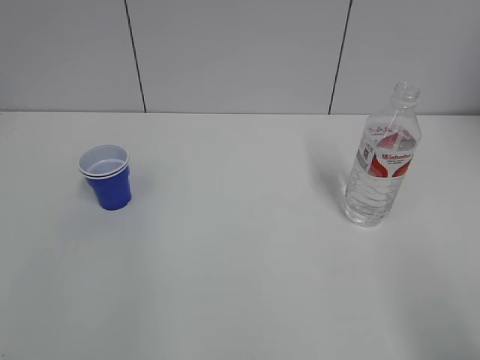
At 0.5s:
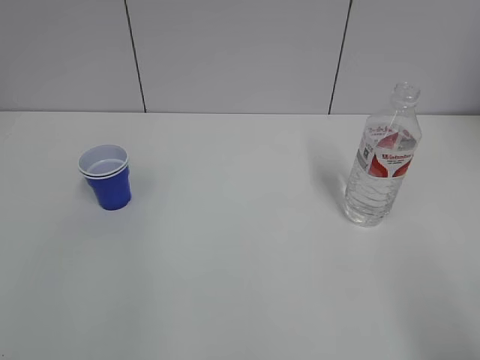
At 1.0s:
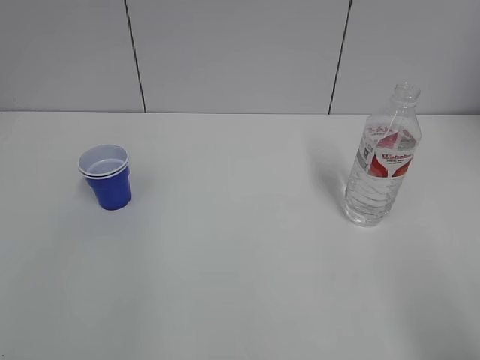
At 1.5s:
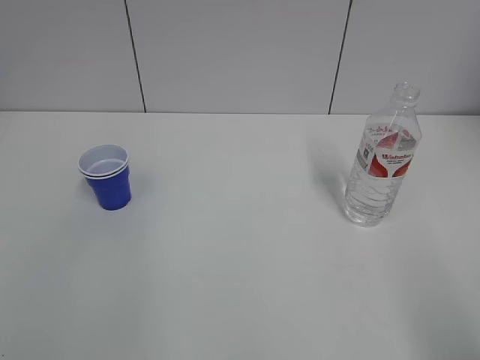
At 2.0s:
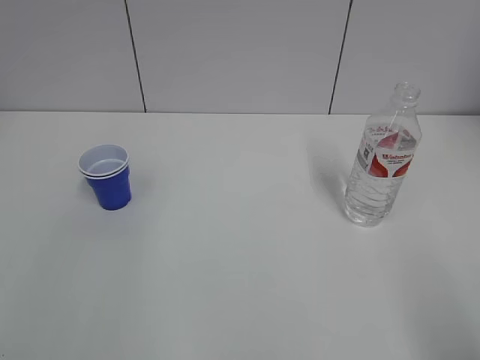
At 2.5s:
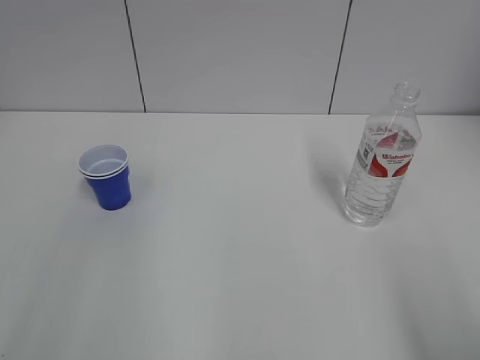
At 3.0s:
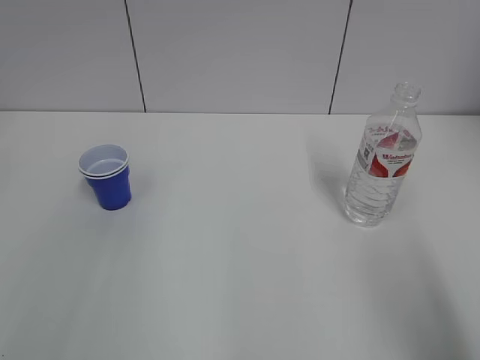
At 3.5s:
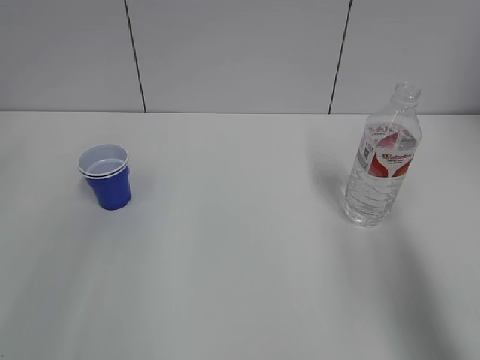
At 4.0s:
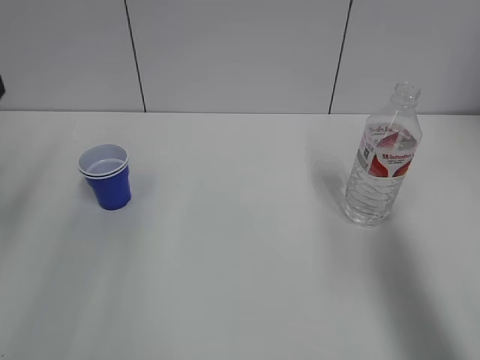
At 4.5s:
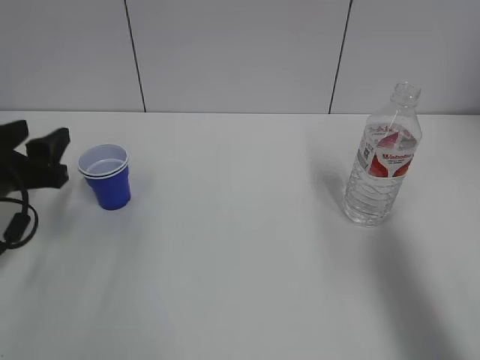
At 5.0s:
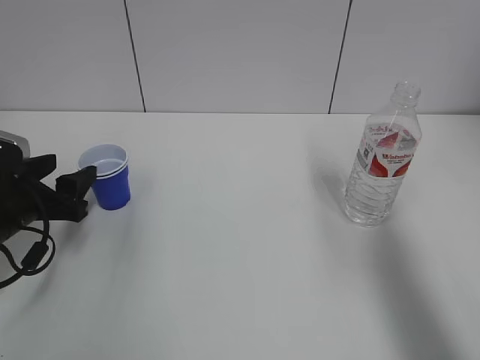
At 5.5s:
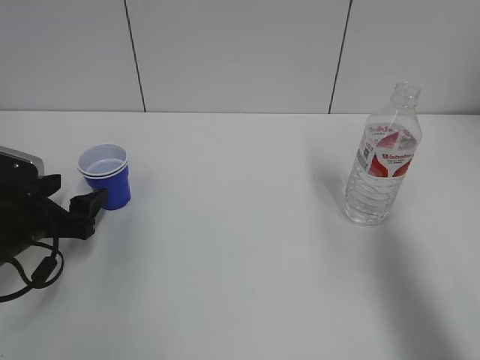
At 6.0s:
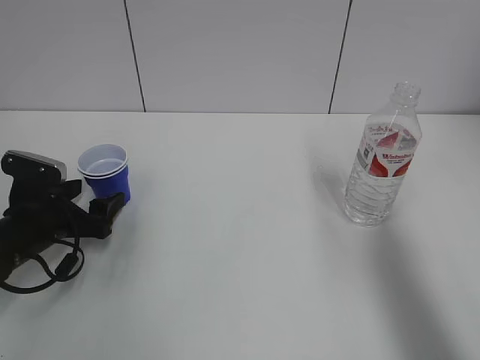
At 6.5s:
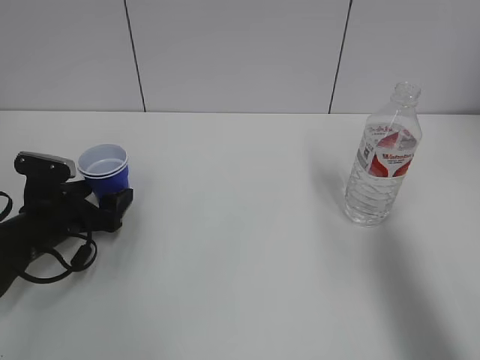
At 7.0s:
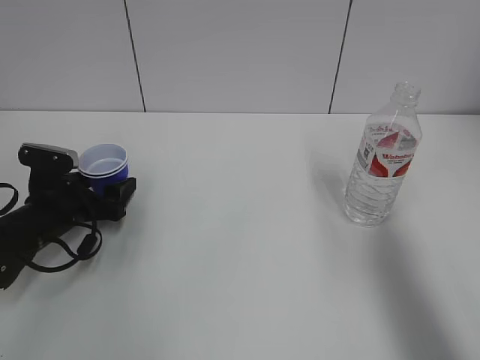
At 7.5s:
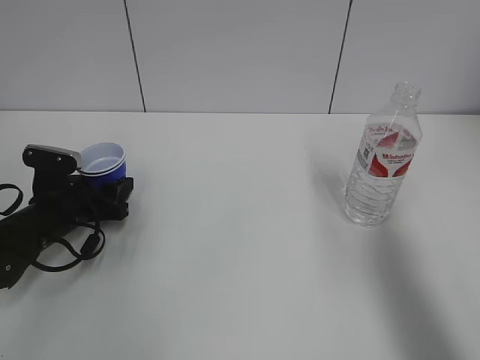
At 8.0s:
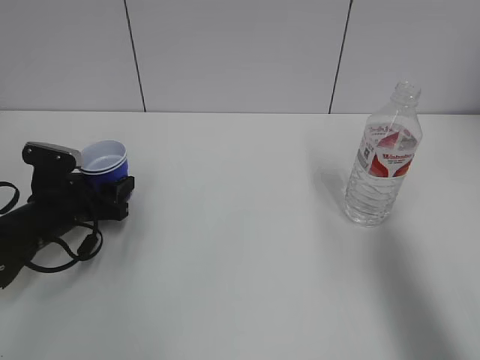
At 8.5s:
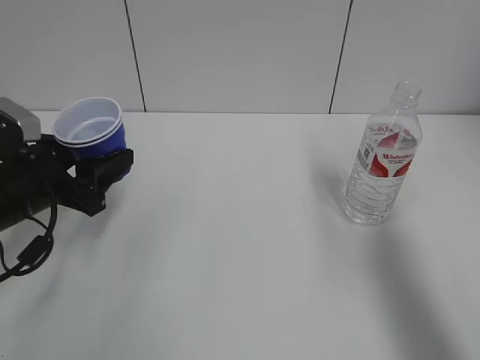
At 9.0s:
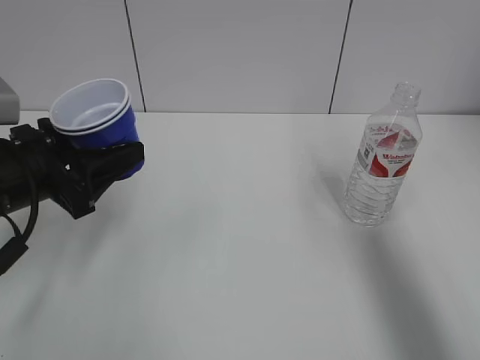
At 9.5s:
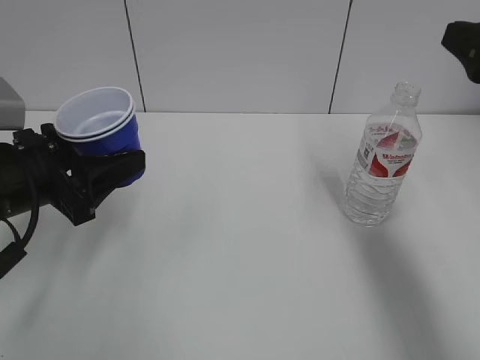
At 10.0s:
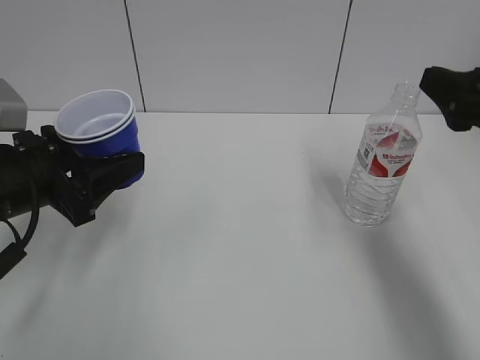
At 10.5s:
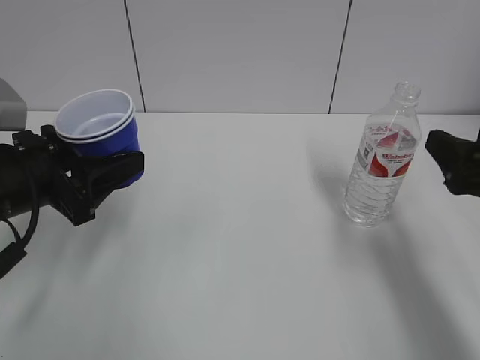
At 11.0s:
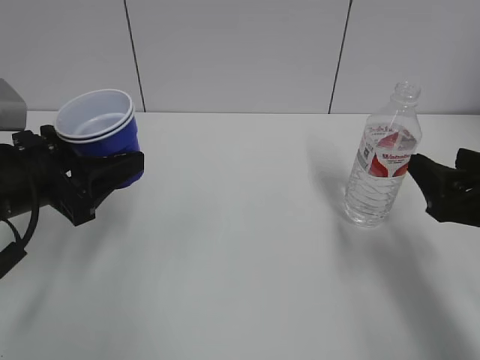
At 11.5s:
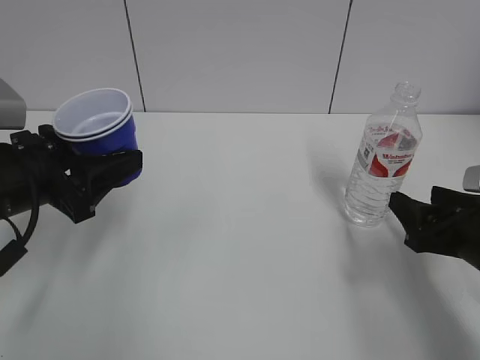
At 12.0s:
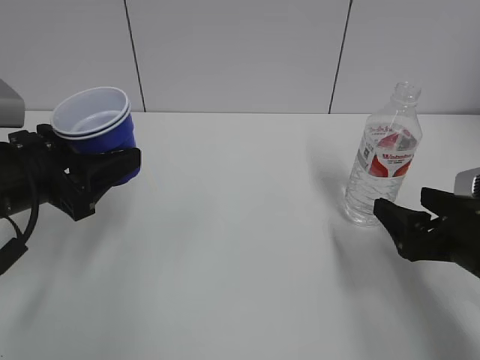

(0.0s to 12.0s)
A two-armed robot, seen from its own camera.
Step, 0.0s - 7.5s: Grab the paper cup with the left hand.
2.0s - 4.0s: The right gripper heads forward, covering some 15 cm.
4.0s - 6.0s: The left gripper heads downward, covering approximately 20 cm.
6.0s - 8.0s: The left gripper closes its fingers.
8.0s - 10.0s: The left gripper moves upward and backward, about 15 cm; the right gripper heads forward and downward, covering about 10 cm.
10.0s - 12.0s: The right gripper goes about 15 cm downward, and opens its fingers.

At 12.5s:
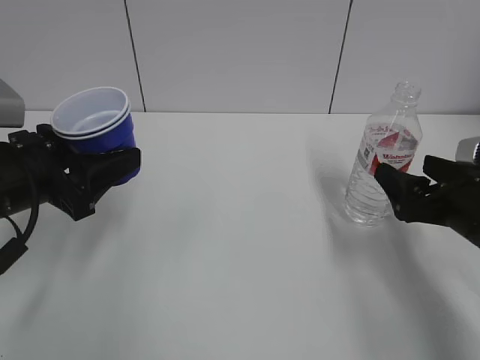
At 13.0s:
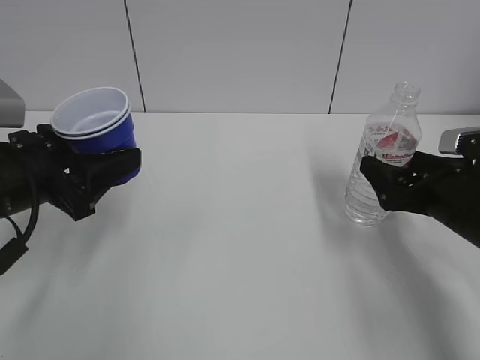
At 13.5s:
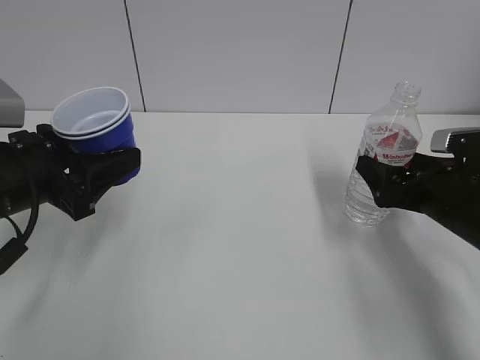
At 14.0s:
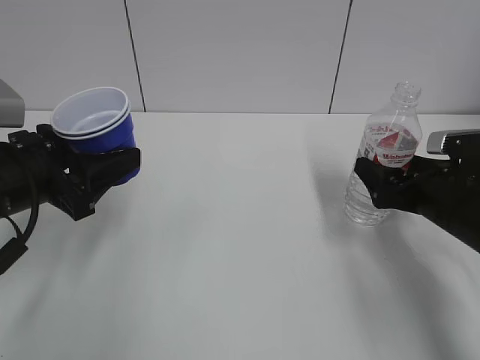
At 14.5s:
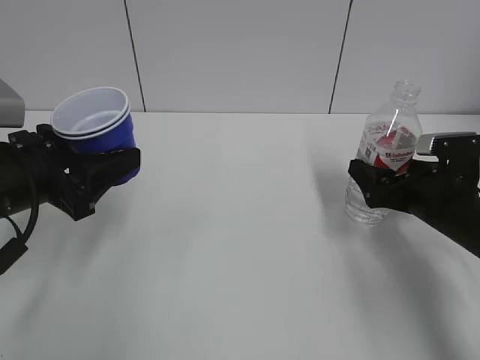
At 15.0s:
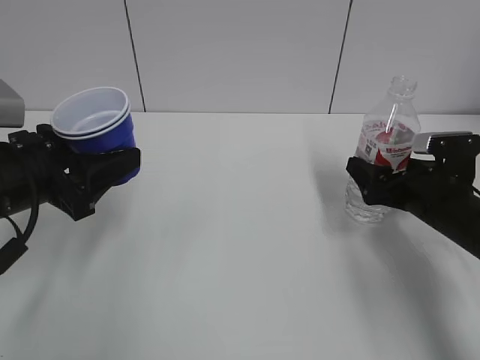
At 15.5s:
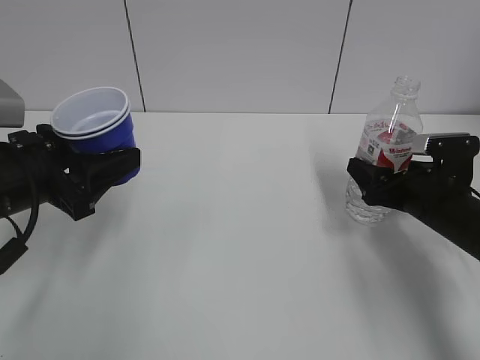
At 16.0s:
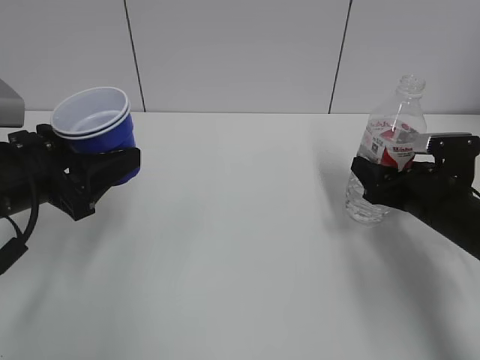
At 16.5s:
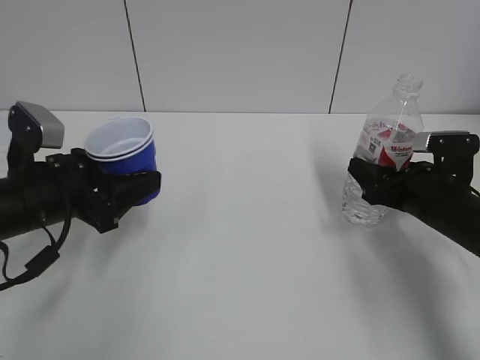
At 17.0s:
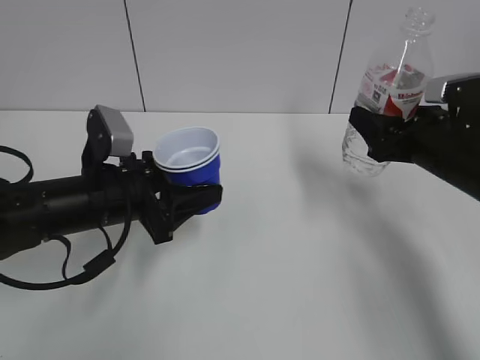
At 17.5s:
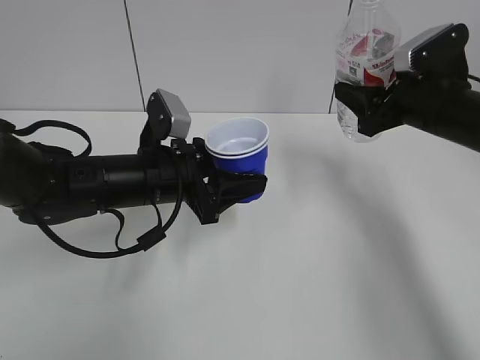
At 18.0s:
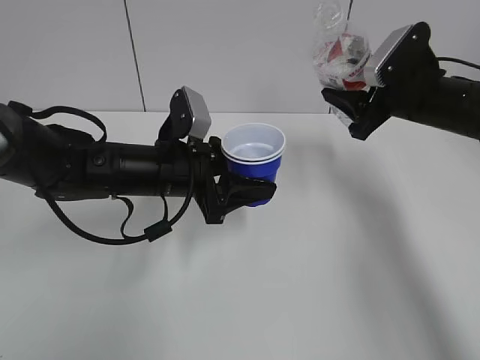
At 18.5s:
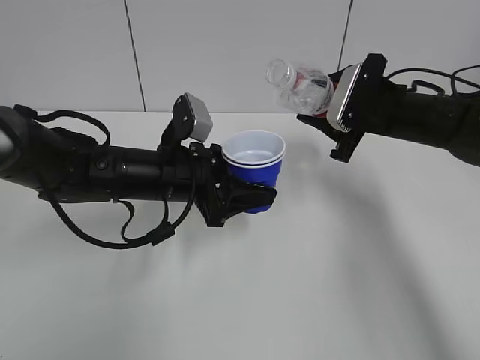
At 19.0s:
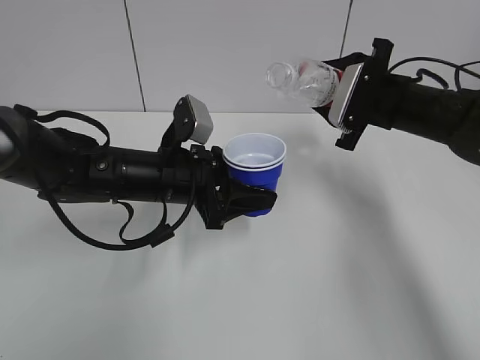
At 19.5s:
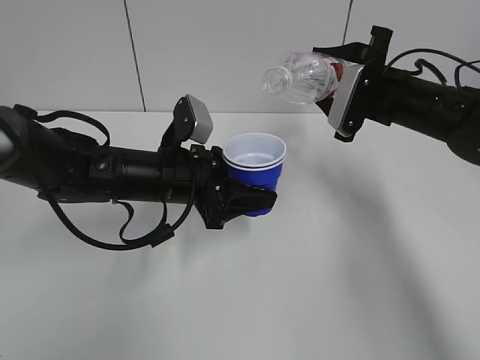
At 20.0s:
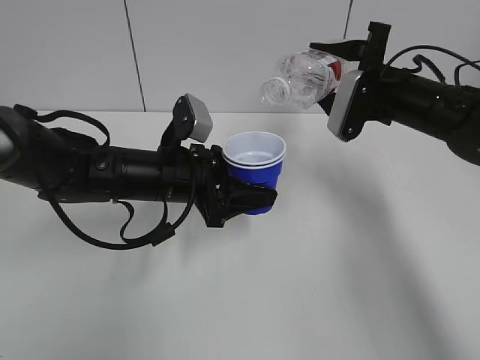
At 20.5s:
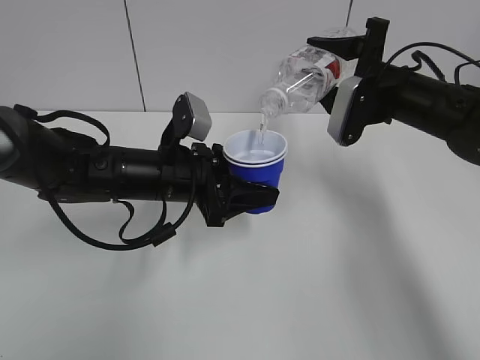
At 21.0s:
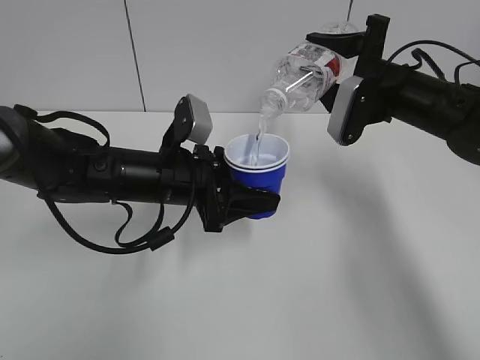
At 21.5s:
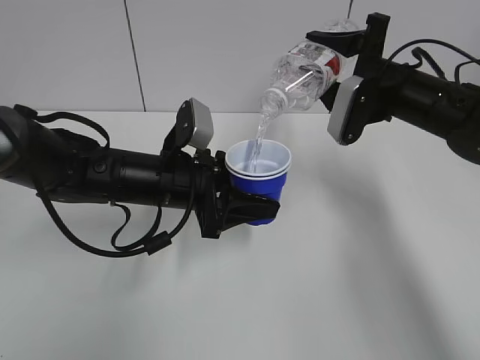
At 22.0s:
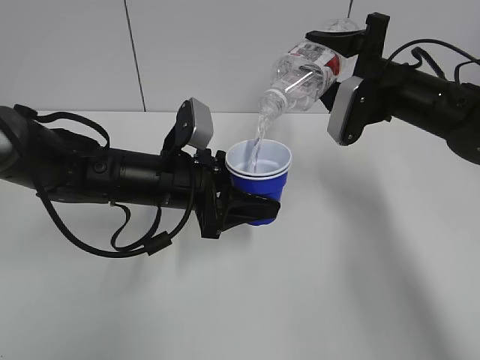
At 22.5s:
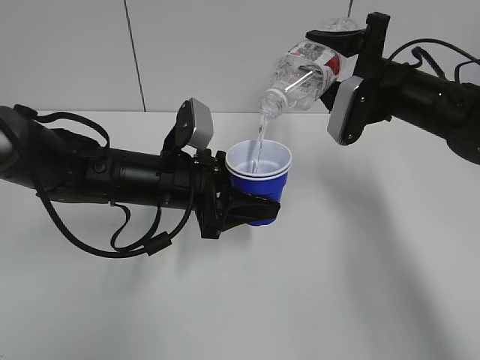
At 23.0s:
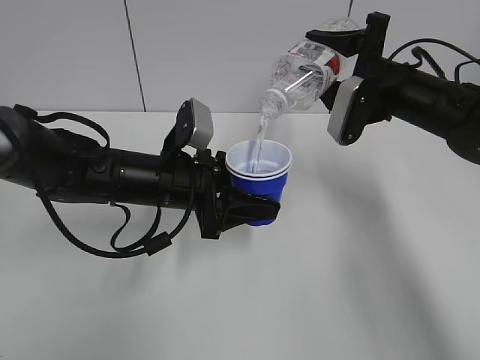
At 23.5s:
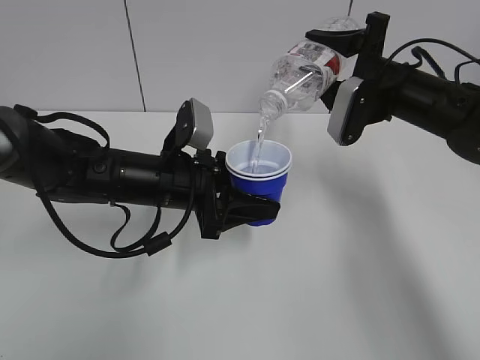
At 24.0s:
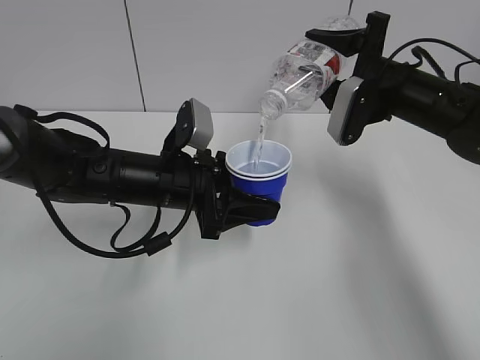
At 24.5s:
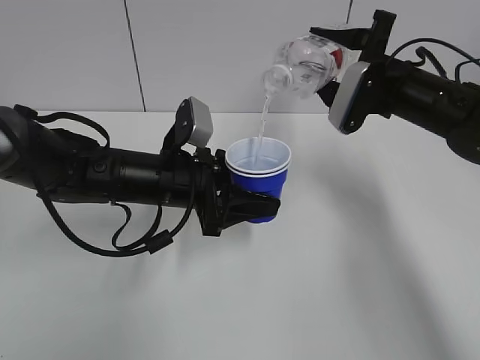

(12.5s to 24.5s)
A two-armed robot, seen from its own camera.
Step, 12.5s - 15.0s: Grab the water bottle with the right hand.
12.5s - 14.5s: The right gripper moves forward, approximately 5 cm.
14.5s - 16.5s: The left gripper changes place by about 5 cm; the right gripper closes.
16.5s - 18.5s: The right gripper is displaced upward and forward by about 10 cm. Meanwhile the left gripper goes approximately 15 cm to the right and forward.
20.5s - 24.5s: The grippers move only a little.

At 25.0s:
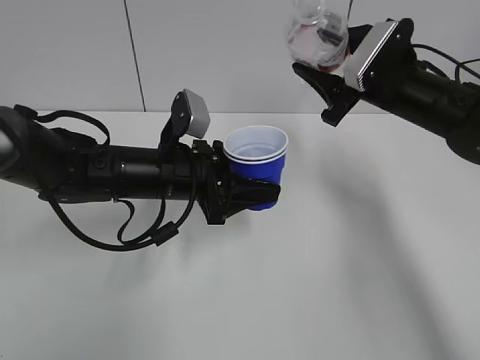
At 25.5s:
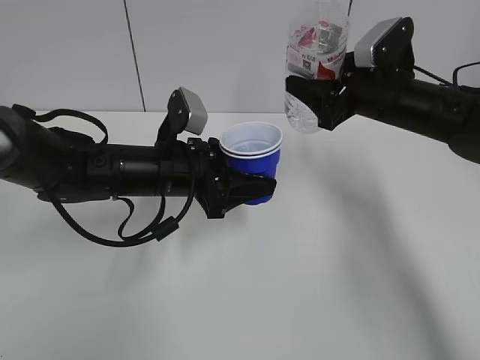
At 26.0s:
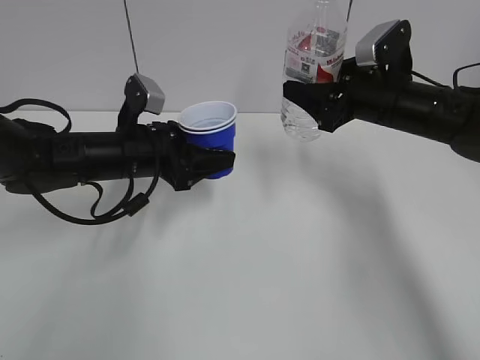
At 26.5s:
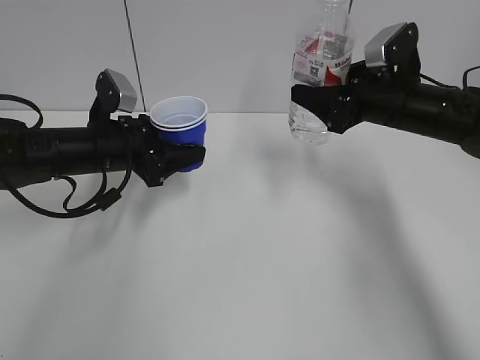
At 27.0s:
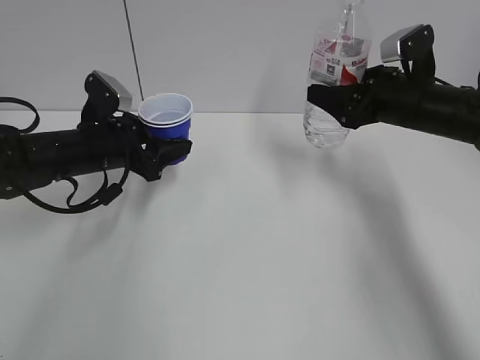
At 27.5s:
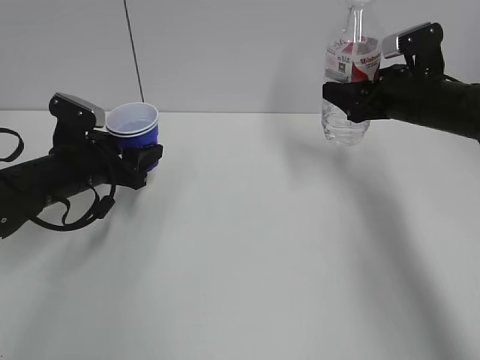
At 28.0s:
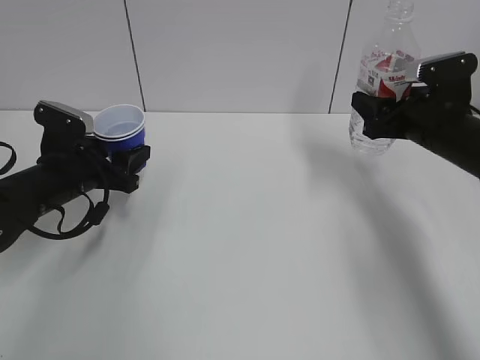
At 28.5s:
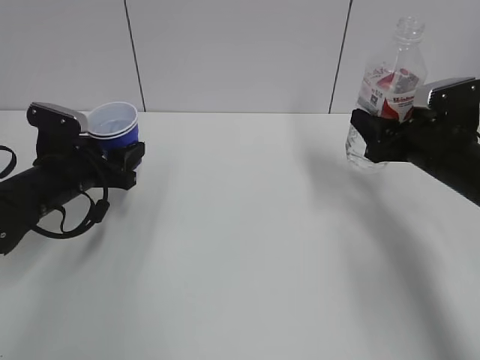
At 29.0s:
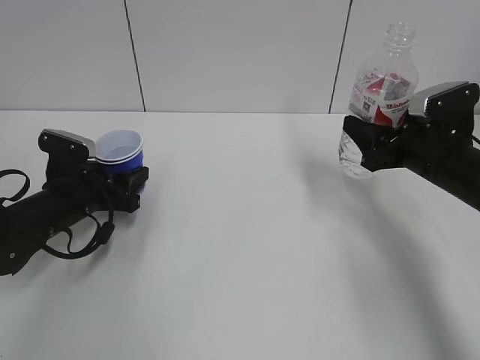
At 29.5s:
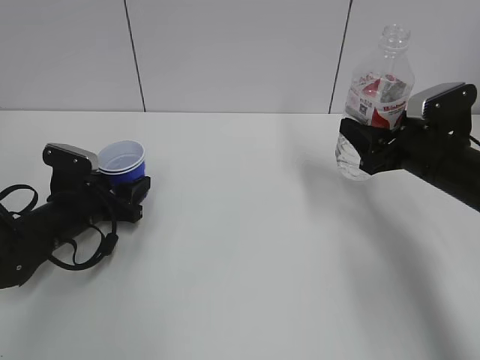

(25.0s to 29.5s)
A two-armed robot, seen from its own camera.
Step, 25.0s - 25.5s: Collect water with the right hand.
25.0s - 27.0s: The left gripper is displaced to the left and forward by some 10 cm.
27.0s - 29.5s: The left gripper heads downward, covering roughly 10 cm. Meanwhile the right gripper heads backward, covering roughly 5 cm.
